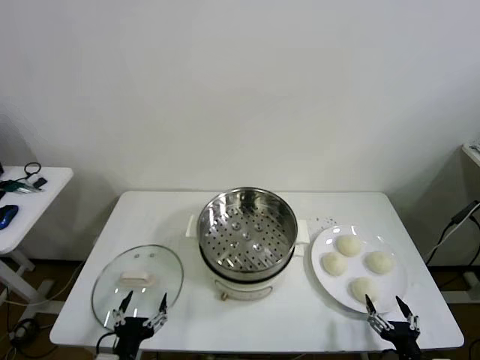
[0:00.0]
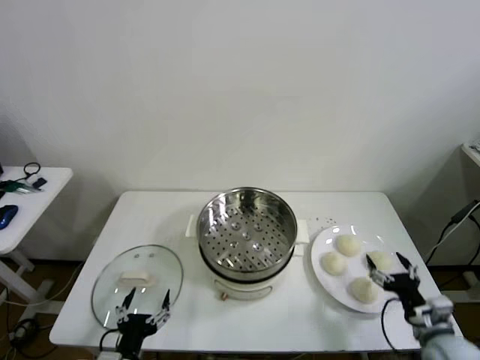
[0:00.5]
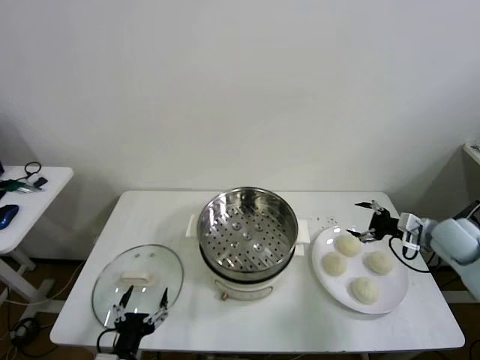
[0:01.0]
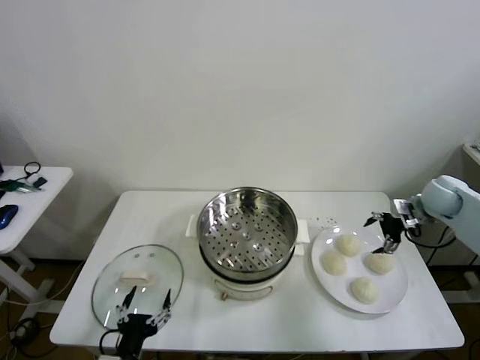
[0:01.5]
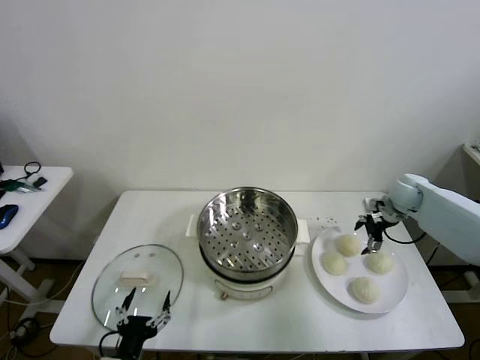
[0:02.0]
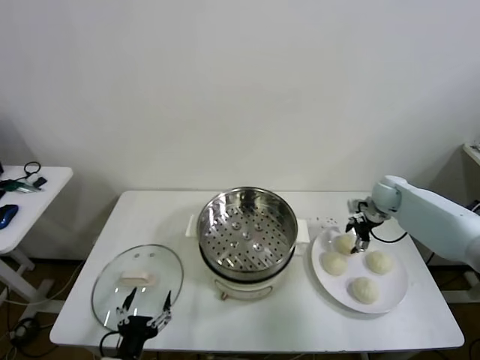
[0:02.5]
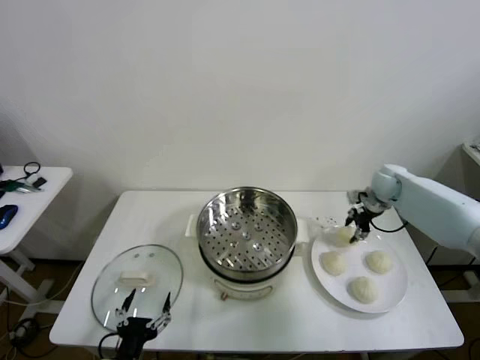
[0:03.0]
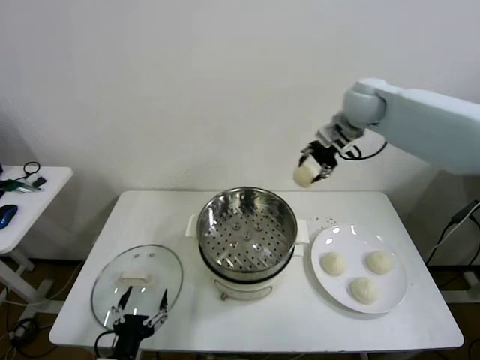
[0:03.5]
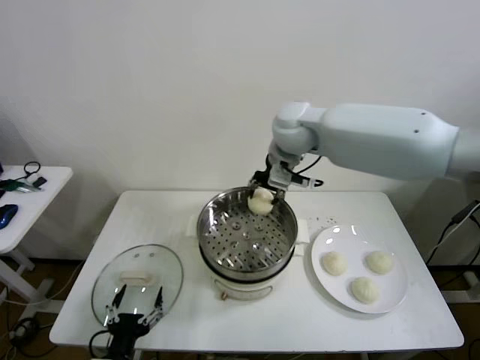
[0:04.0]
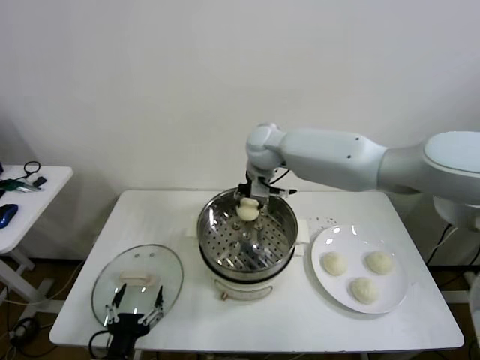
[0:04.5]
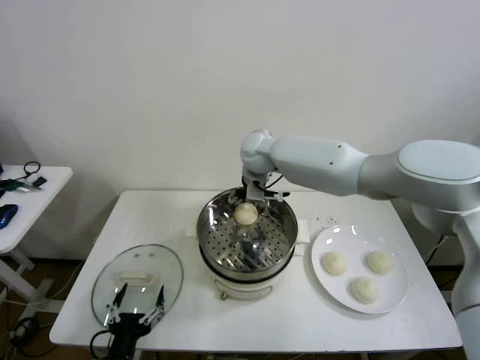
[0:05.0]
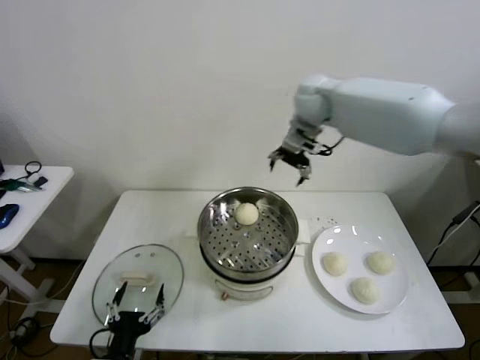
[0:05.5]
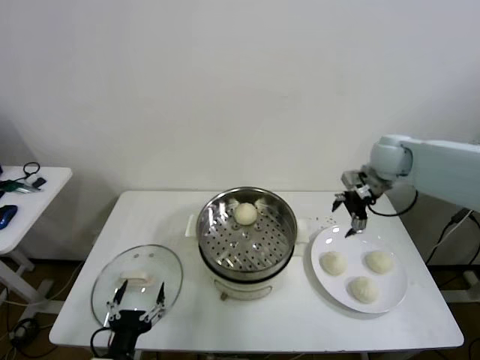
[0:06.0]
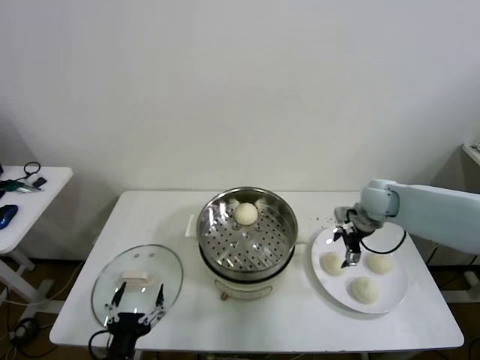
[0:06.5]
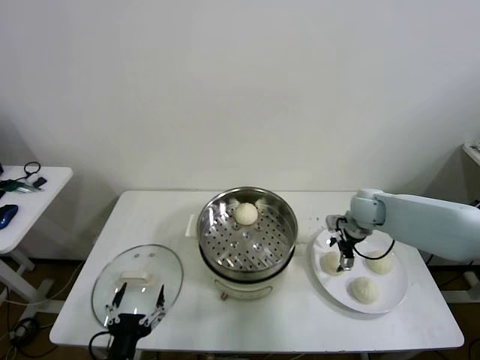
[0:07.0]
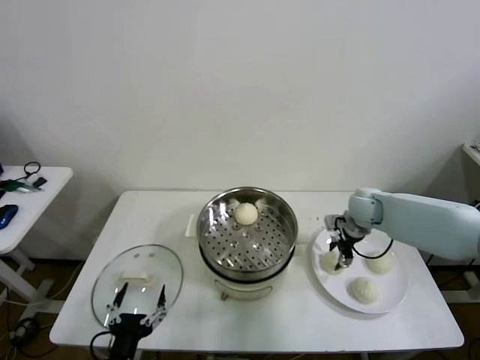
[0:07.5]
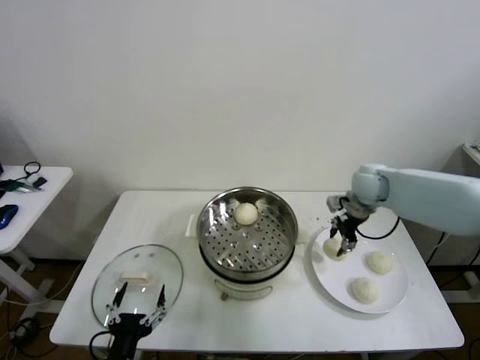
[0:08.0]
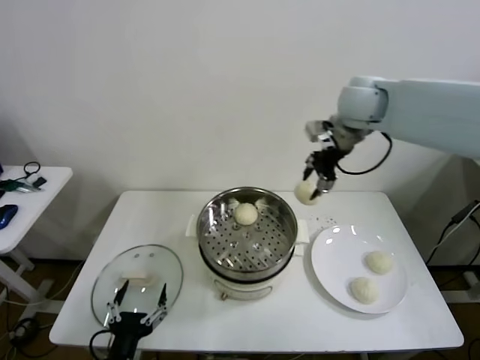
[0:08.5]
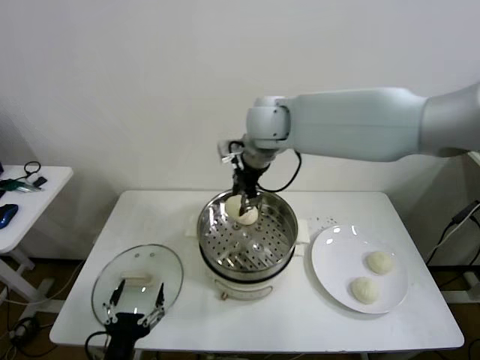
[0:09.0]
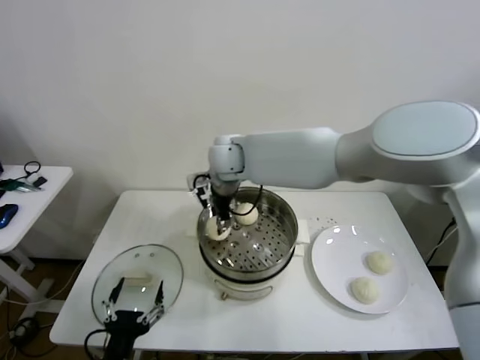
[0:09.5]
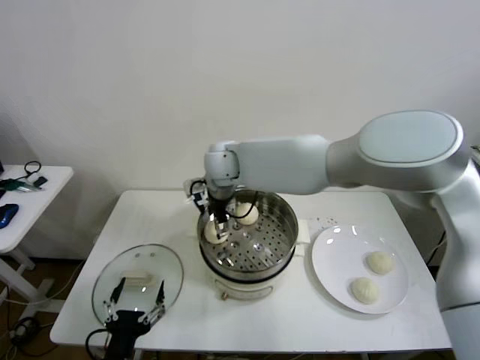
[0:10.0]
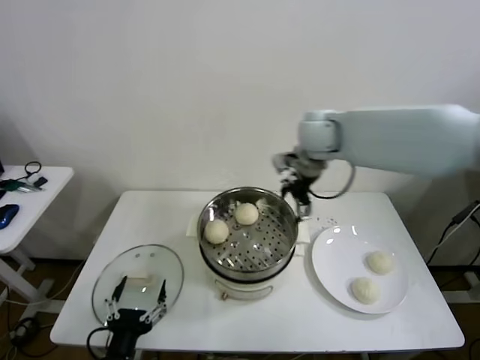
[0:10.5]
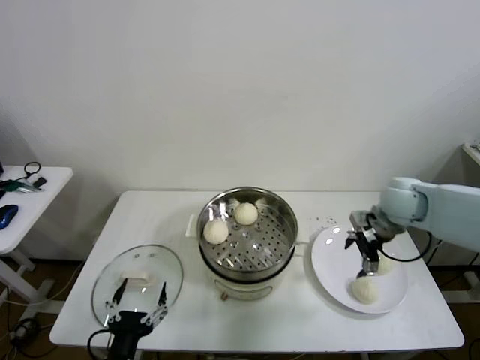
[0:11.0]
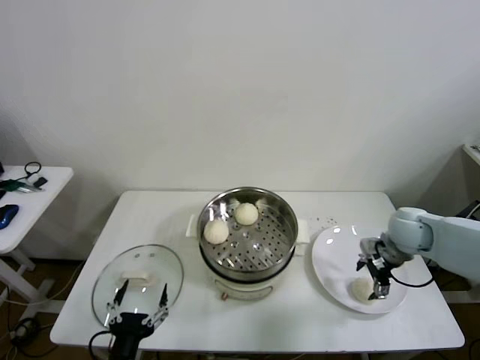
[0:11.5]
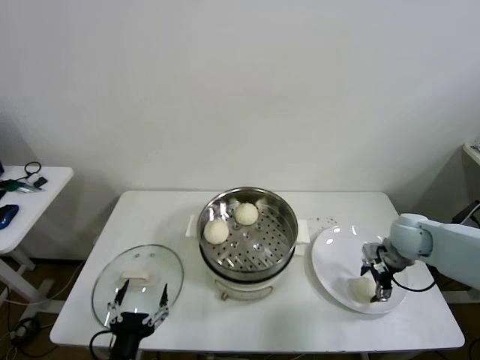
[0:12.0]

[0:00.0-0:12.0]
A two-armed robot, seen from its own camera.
Task of the whole recording: take steamed baozi put them in steamer then cover it.
Step, 0:00.0 to 0:02.5: Grasp the baozi in the plate with right gripper.
Step, 0:03.0 to 0:05.0: Place the baozi on the steamer with right gripper.
Step, 0:05.5 to 0:07.5: Grasp the baozi in the plate with right gripper.
Step, 0:08.0 to 0:10.0: Place the baozi on the steamer with right gripper.
0:02.0 to 0:04.0: The right gripper goes about 40 cm to the left and upward, and closes.
0:04.0 to 0:06.0: The right gripper goes some 25 cm to the right, and opens its fingers.
0:06.0 to 0:08.0: The right gripper goes approximately 5 cm downward, and closes.
0:08.0 to 0:10.0: The right gripper moves to the left, roughly 35 cm, and opens.
0:10.0 to 0:12.0: The right gripper shifts approximately 40 cm to the right.

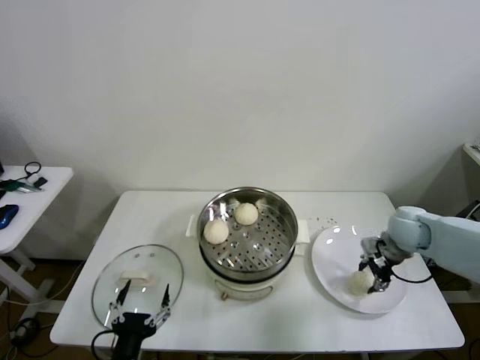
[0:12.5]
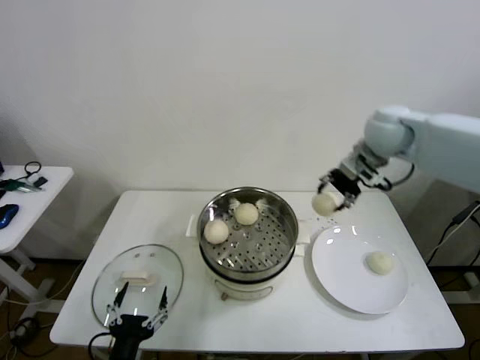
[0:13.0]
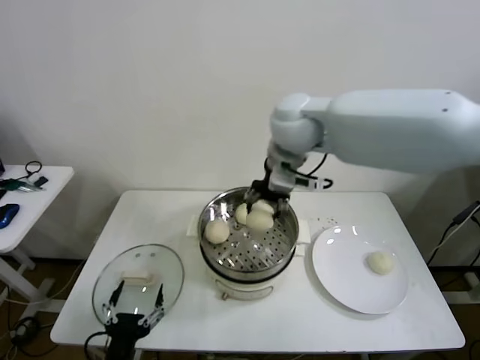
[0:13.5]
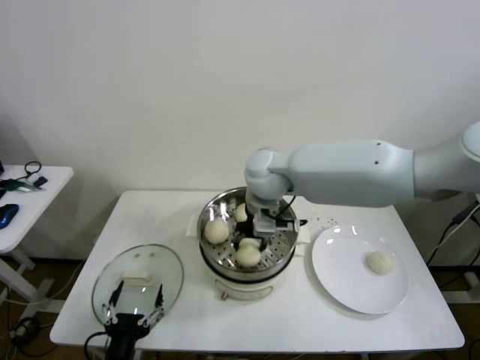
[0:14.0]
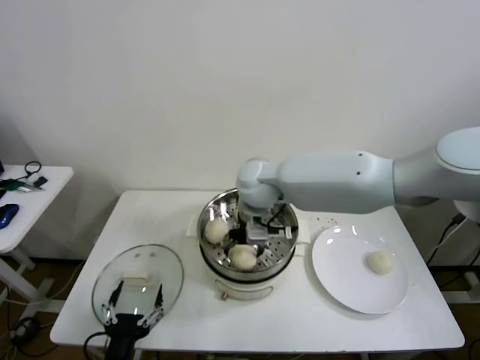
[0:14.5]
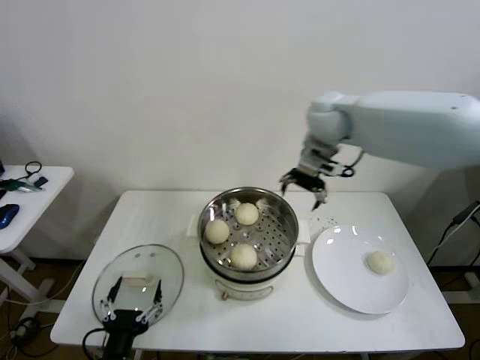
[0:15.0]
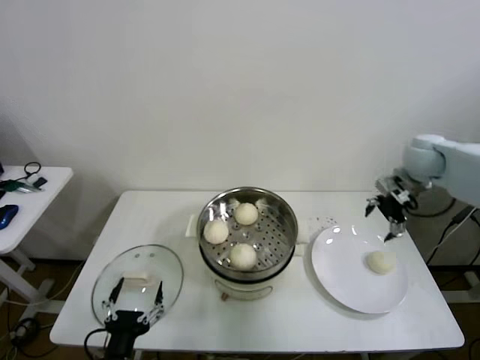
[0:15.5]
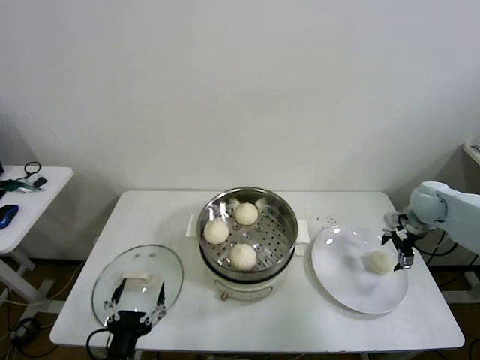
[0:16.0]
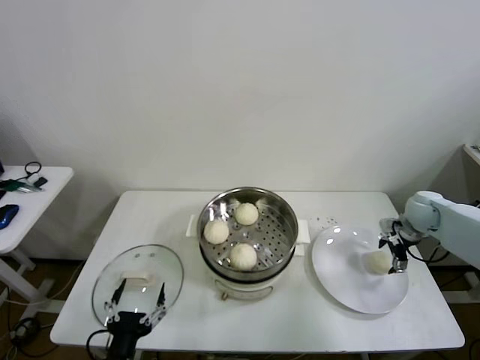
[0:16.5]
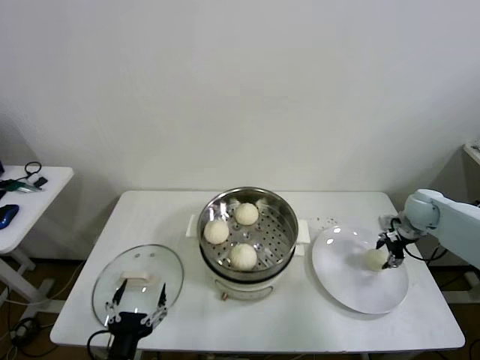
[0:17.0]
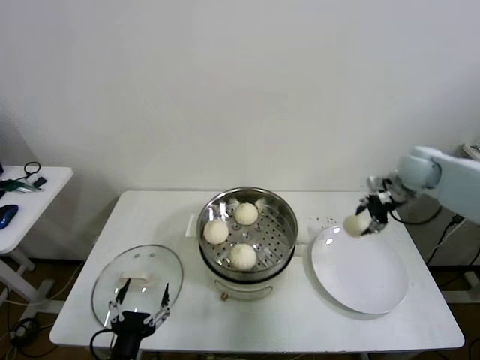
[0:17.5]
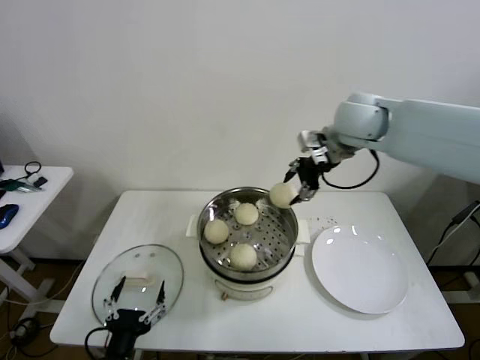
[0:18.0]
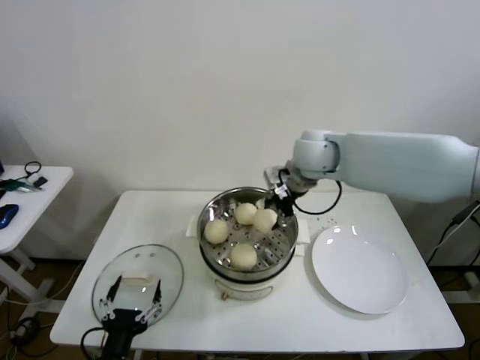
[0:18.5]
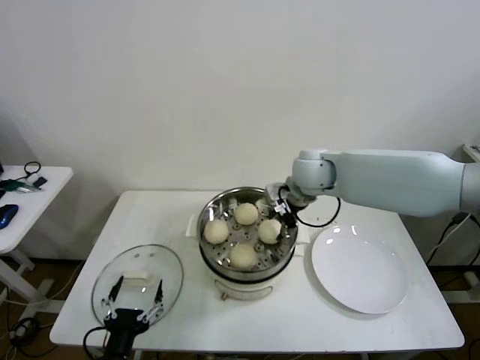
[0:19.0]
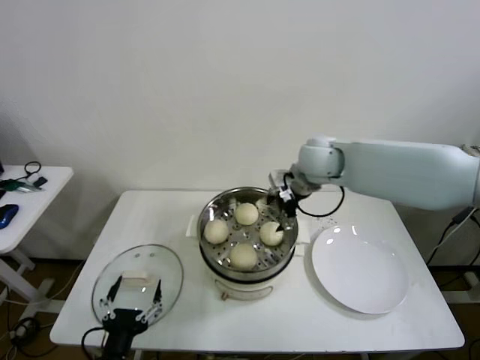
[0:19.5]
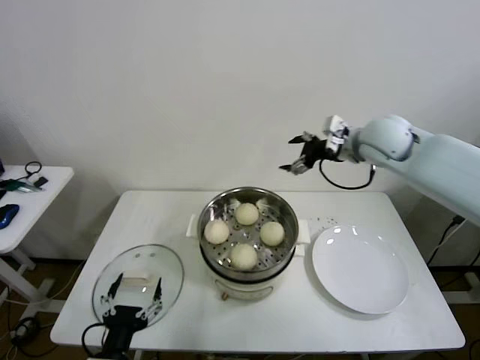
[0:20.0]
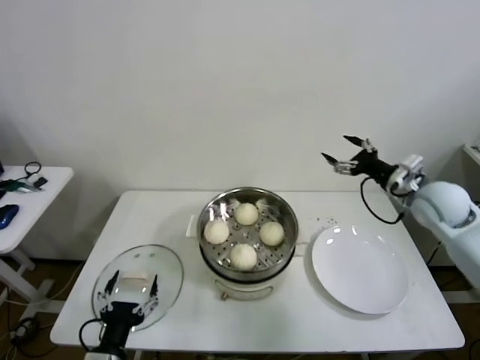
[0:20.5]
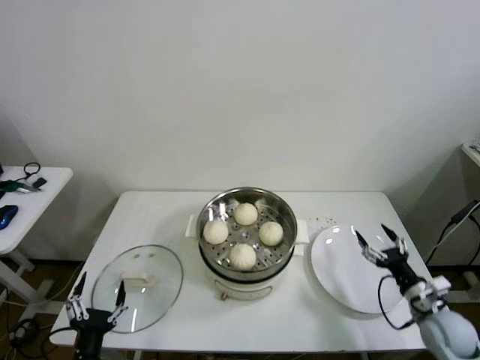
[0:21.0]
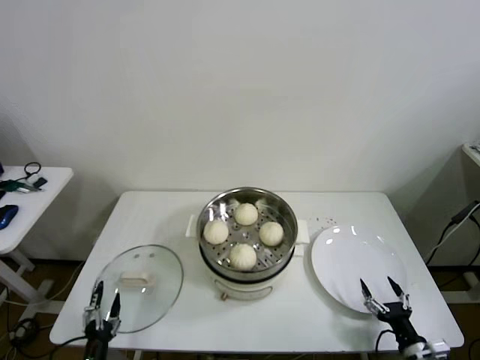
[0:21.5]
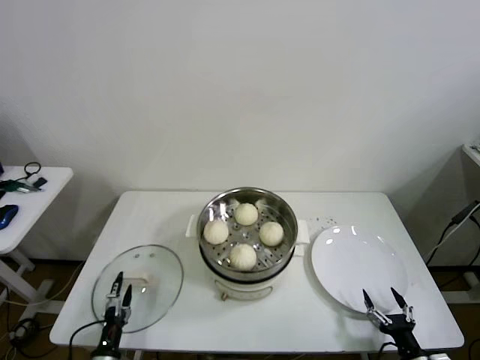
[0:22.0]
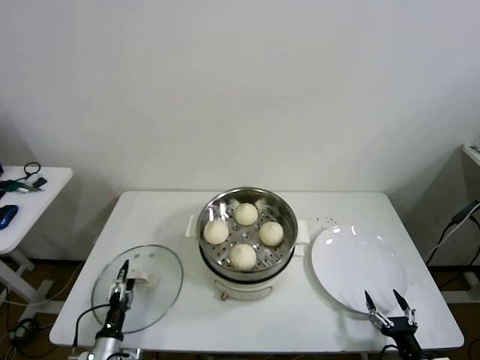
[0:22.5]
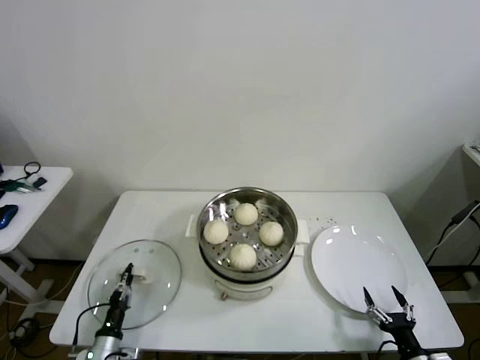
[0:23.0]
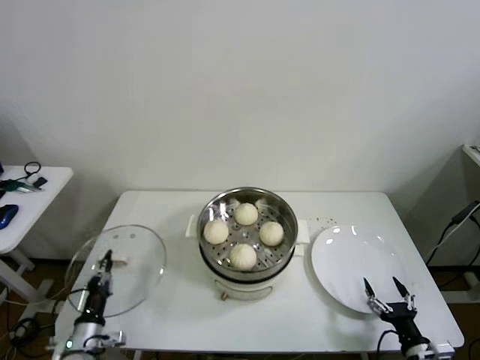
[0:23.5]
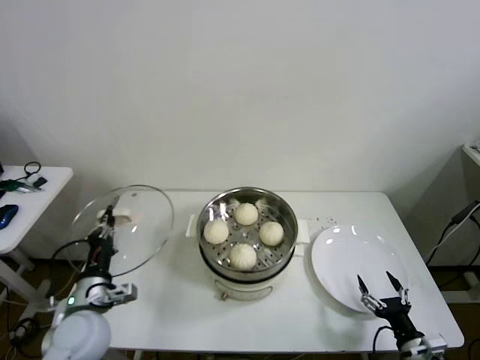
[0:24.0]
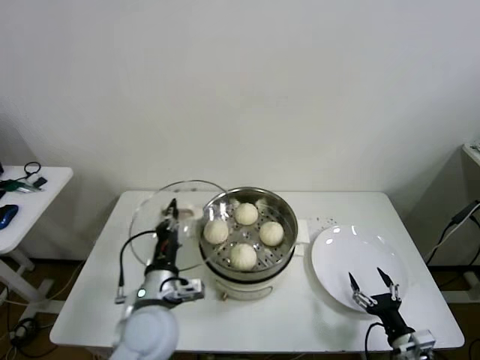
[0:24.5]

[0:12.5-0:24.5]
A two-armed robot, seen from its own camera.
Task of the whole recording: take steamed baozi put them in steamer then cover it.
Step, 0:12.5 to 0:14.5: Place the baozi on the steamer with right gripper.
Step, 0:15.0 to 0:16.5: Grasp the baozi in the plate with right gripper.
Step, 0:17.0 to 0:19.5: Place the baozi on the steamer with right gripper.
Step, 0:20.0 to 0:23.0: Grasp the pot lid with left gripper.
0:12.5 to 0:14.5: The right gripper shifts some 35 cm to the left, and opens up.
0:14.5 to 0:16.5: The right gripper is displaced to the right by approximately 40 cm.
0:16.5 to 0:18.5: The right gripper shifts approximately 35 cm to the left and upward, and closes.
0:18.5 to 0:20.5: The right gripper heads to the right, covering about 25 cm, and opens up.
0:20.5 to 0:22.5: The left gripper shifts some 20 cm downward and to the left. Meanwhile the right gripper travels backward and downward by some 40 cm.
0:22.5 to 0:24.5: The left gripper shifts approximately 30 cm upward and to the right, and closes. The right gripper ends up approximately 5 cm from where it was.

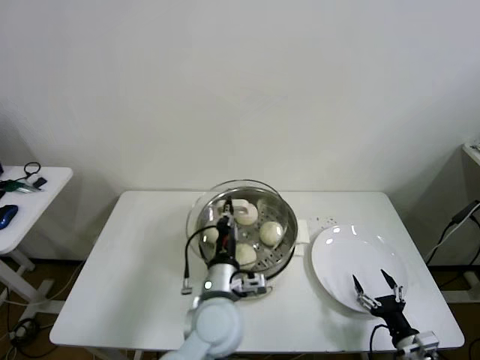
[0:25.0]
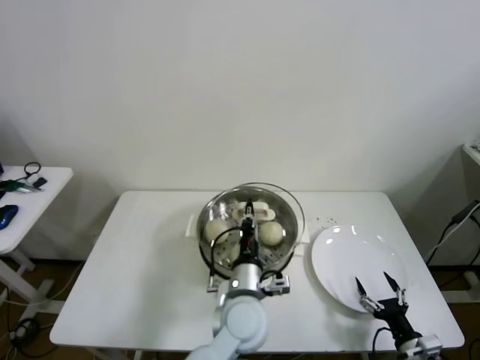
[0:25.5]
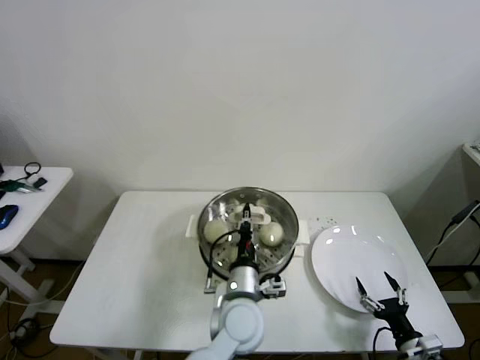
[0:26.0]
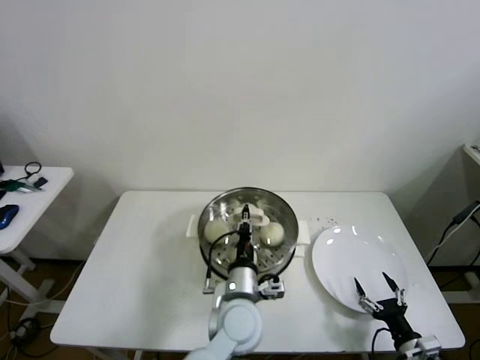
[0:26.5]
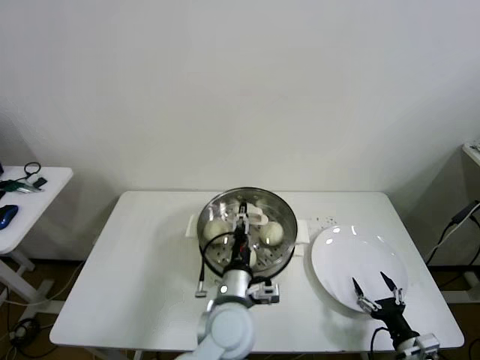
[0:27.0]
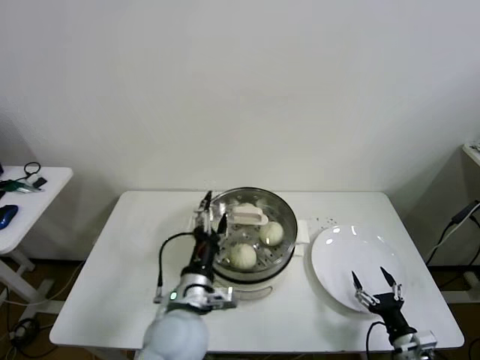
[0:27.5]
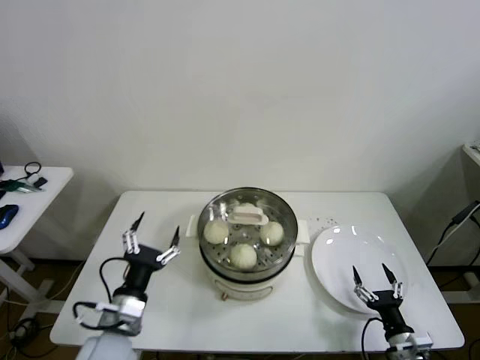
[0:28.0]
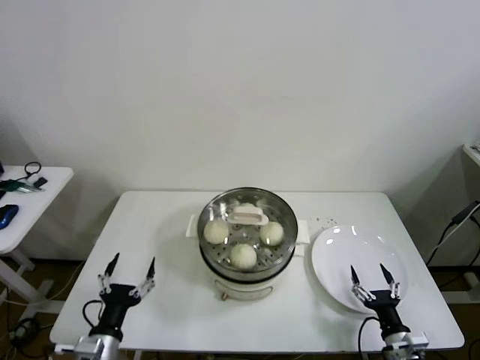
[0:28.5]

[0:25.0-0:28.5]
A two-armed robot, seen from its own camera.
Task of the whole recording: take steamed baozi put them in steamer then cover it.
Step, 0:25.0 to 0:27.0: Place the pot lid on the steamer with left gripper.
0:25.0 to 0:27.0: The left gripper opens its fingers.
0:27.0 to 0:28.5: The left gripper moves to the left, about 25 cm, and opens up.
